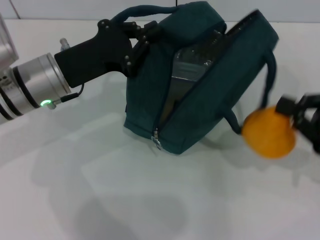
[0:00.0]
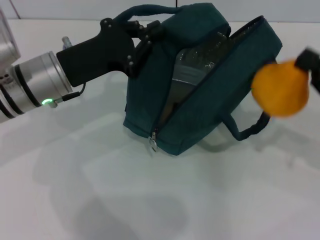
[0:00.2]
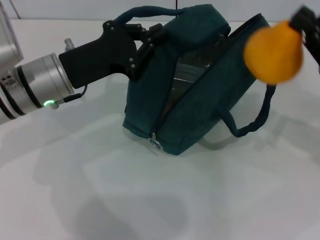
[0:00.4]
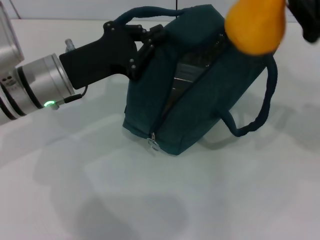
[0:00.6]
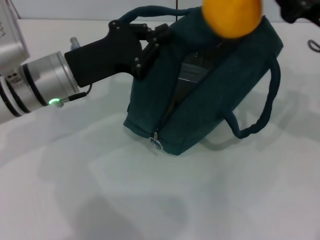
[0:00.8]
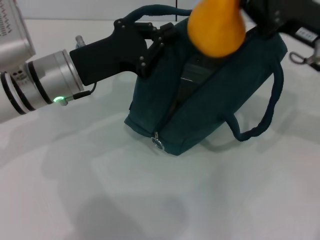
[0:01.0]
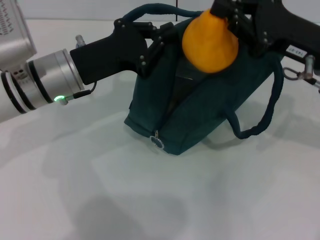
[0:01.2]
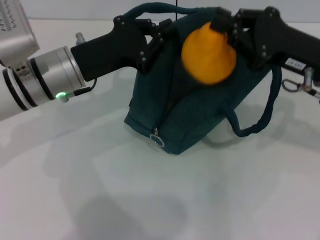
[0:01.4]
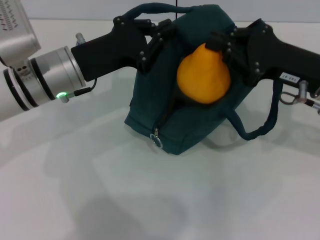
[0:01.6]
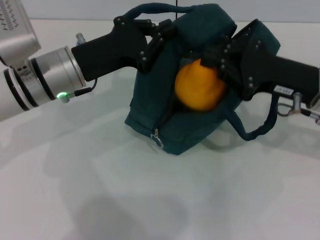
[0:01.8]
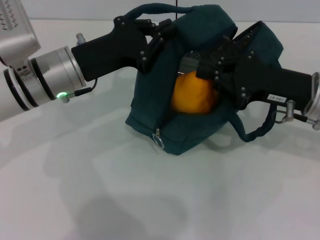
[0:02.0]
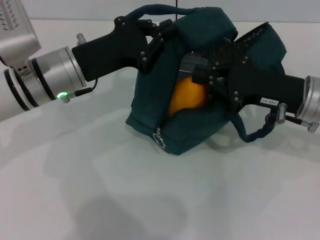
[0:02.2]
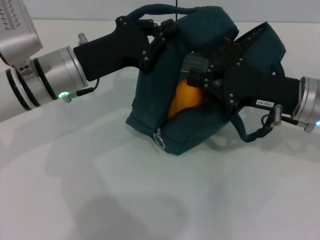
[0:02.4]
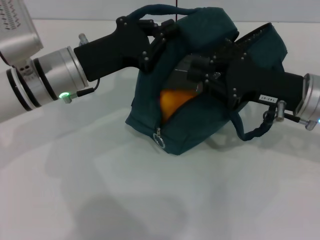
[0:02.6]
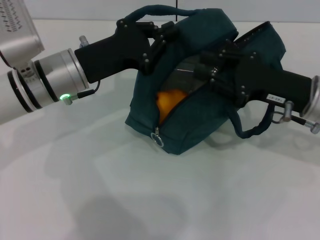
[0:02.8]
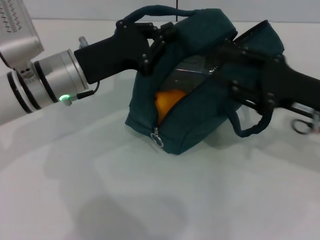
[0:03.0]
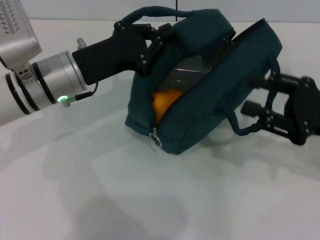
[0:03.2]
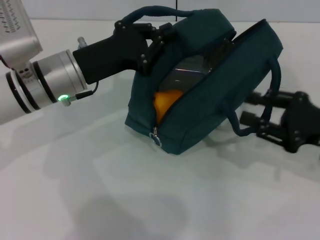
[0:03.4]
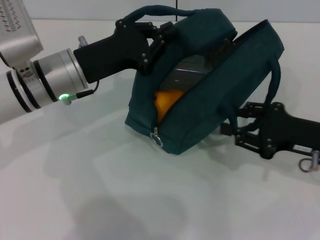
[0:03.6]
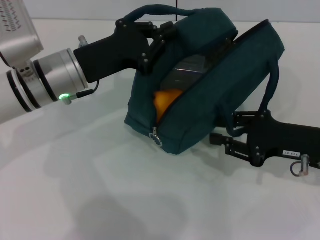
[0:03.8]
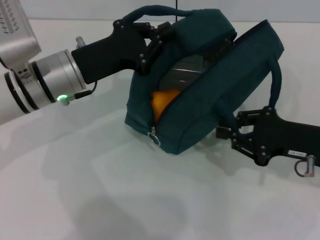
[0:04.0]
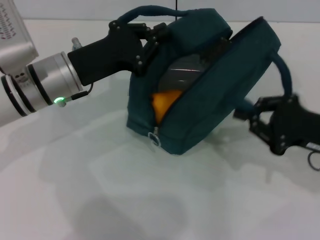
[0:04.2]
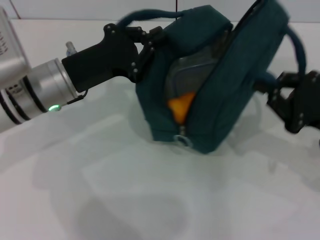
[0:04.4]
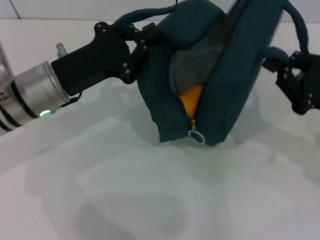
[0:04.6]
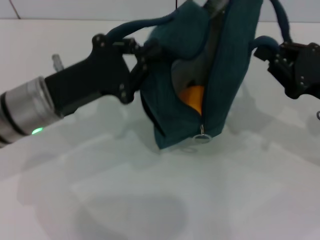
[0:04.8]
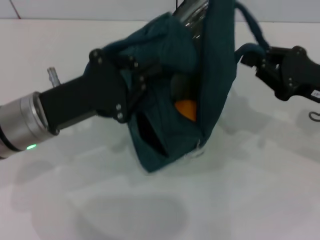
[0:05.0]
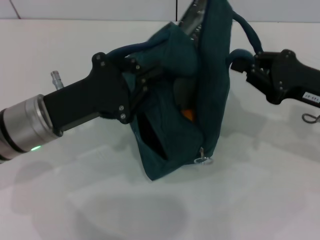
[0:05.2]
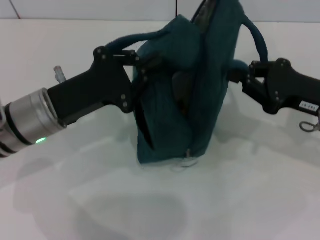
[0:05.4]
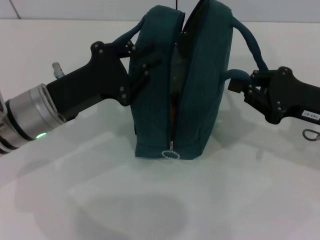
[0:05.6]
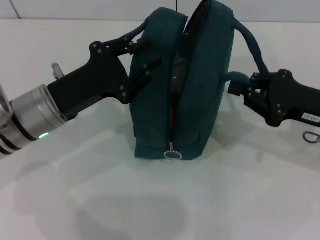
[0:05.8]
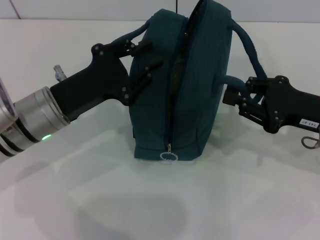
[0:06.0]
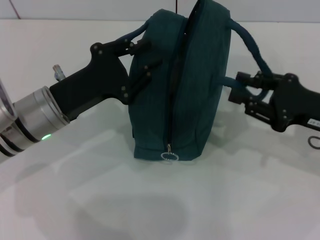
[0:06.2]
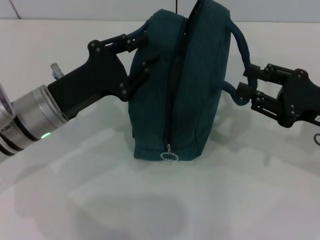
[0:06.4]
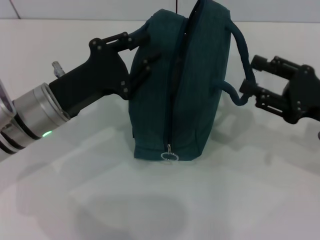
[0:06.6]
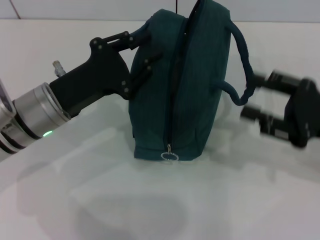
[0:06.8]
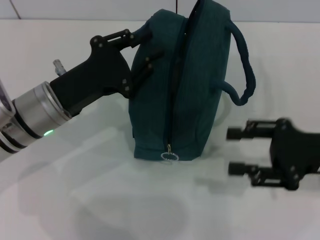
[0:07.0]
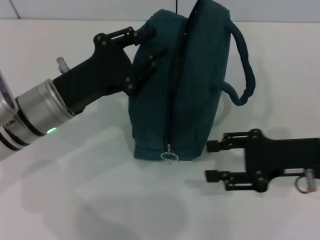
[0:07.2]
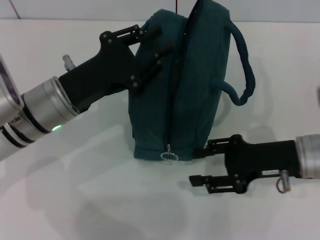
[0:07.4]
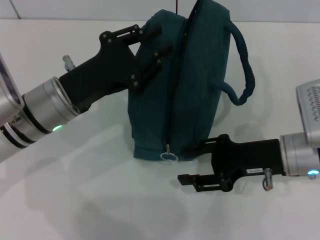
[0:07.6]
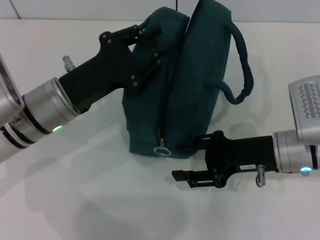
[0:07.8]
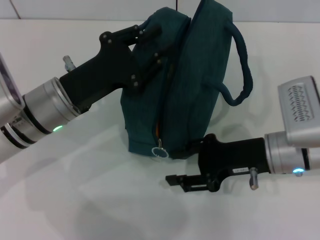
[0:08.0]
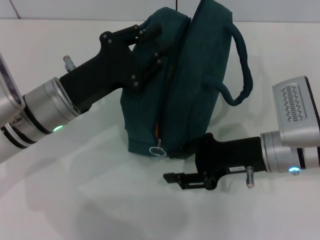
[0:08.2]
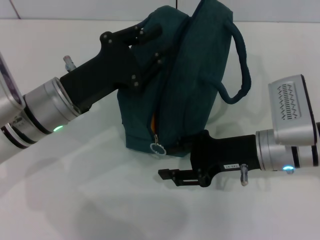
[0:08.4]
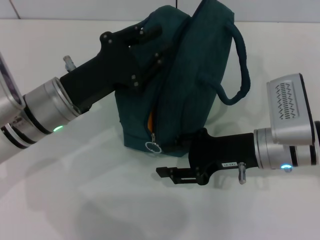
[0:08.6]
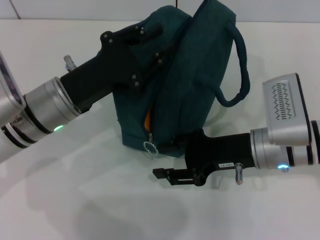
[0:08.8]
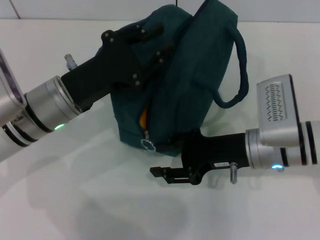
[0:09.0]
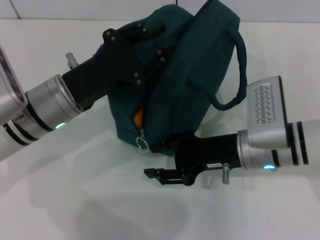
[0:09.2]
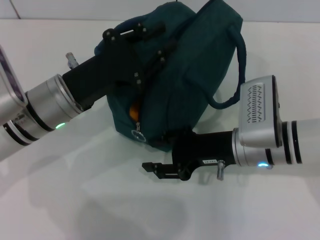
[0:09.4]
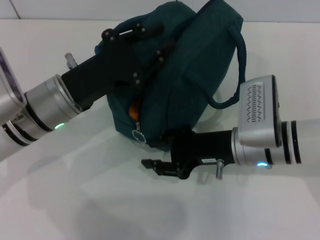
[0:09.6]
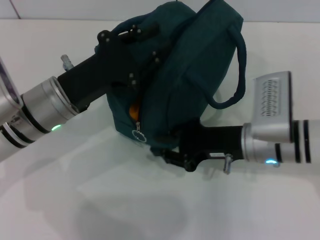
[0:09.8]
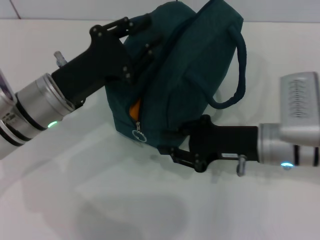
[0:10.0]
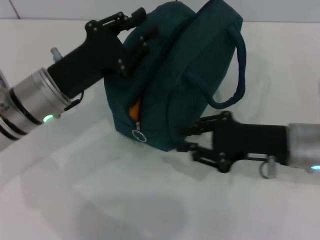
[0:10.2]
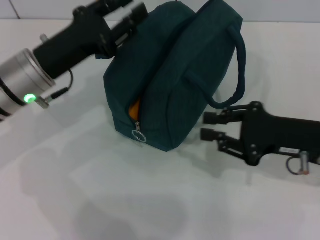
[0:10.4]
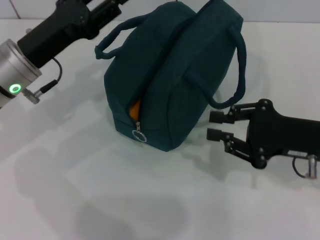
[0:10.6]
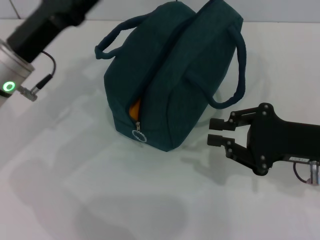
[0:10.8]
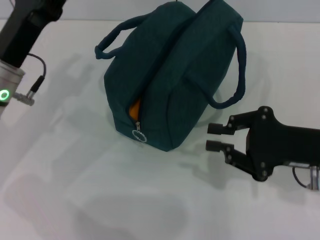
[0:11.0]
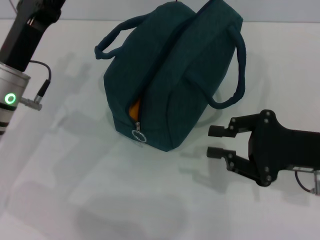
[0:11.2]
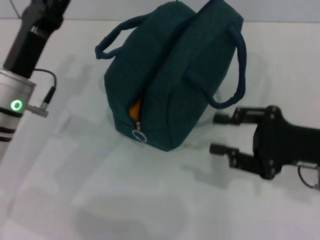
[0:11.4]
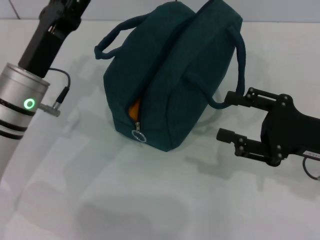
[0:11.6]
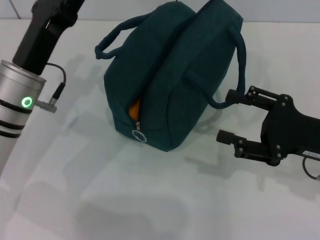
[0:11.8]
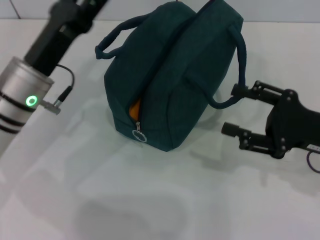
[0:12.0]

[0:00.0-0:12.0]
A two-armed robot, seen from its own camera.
Step, 0:03.0 to 0:06.4: Hold the lunch bag with your left hand.
0:00.0 to 0:01.6: The right gripper heads to the left and forward, covering approximately 10 cm.
0:01.6 to 0:03.0: There are only small adjustments of the grippers.
0:03.0 to 0:04.4: The right gripper shifts by approximately 5 cm.
0:06.0 to 0:07.6: The right gripper shifts roughly 5 cm to the left, and opens its fingers.
0:07.6 to 0:09.0: The grippers stay close to where they were, moving slightly.
0:09.0 to 0:10.4: The right gripper heads to the right, covering some 10 cm.
0:10.4 to 0:12.0: The left gripper opens. The right gripper opens its fingers.

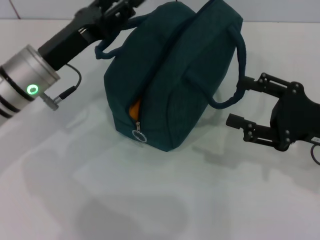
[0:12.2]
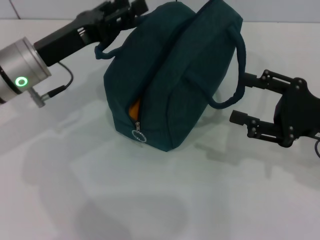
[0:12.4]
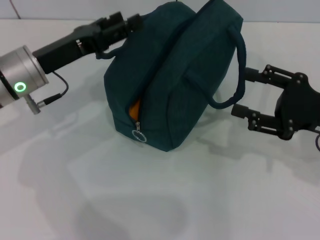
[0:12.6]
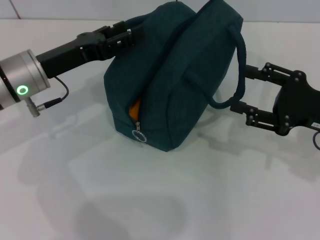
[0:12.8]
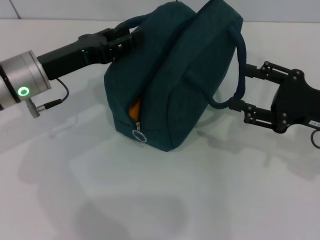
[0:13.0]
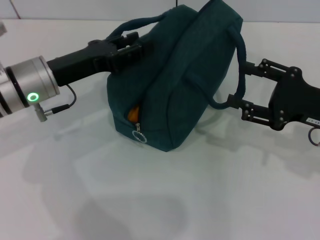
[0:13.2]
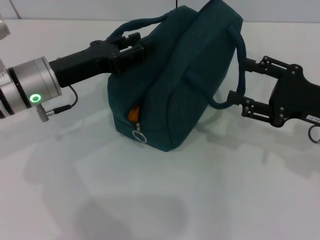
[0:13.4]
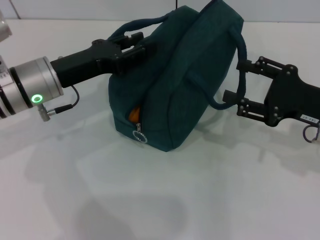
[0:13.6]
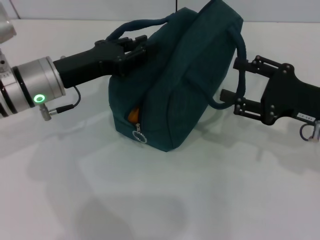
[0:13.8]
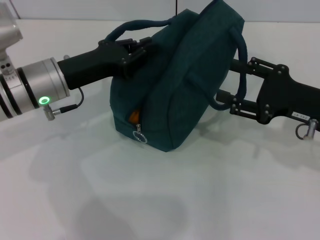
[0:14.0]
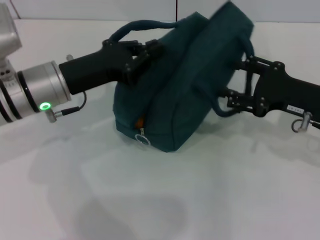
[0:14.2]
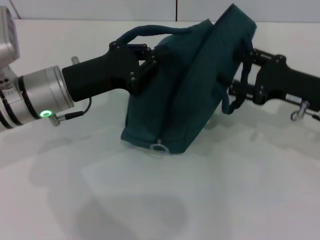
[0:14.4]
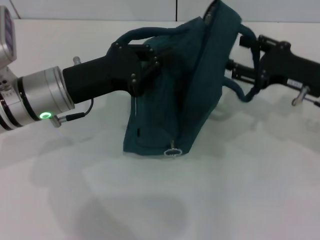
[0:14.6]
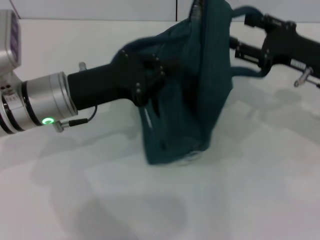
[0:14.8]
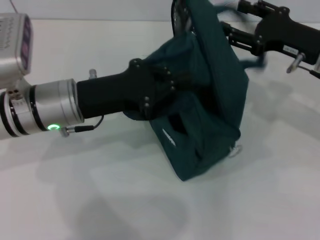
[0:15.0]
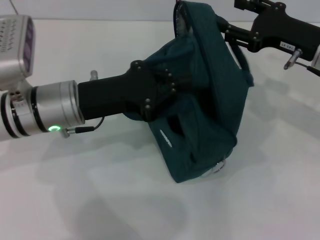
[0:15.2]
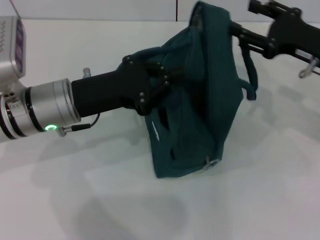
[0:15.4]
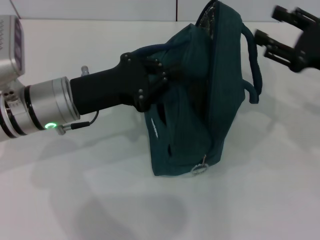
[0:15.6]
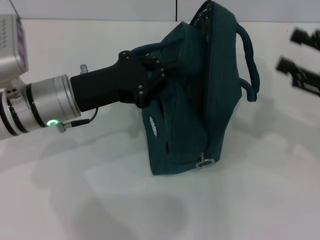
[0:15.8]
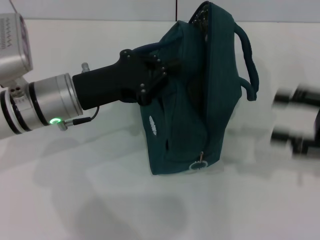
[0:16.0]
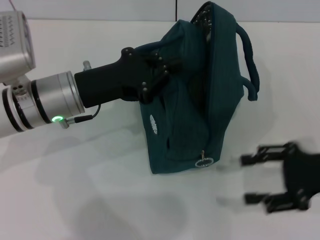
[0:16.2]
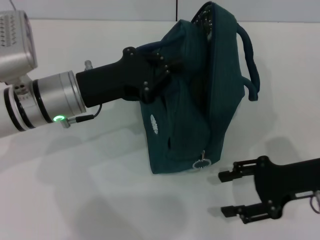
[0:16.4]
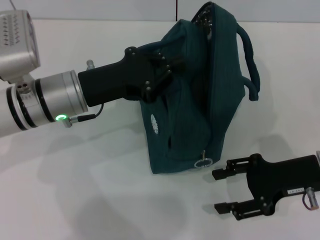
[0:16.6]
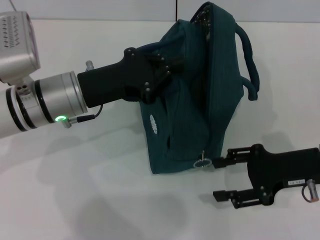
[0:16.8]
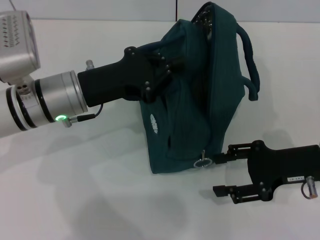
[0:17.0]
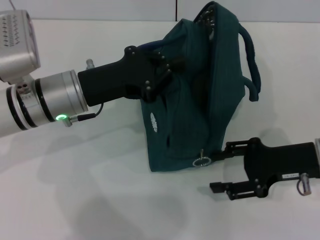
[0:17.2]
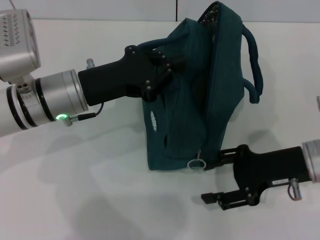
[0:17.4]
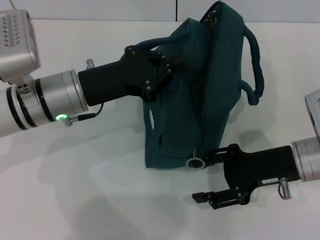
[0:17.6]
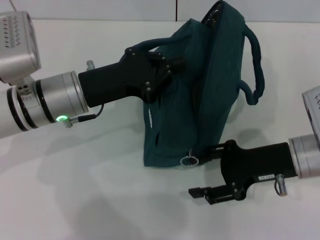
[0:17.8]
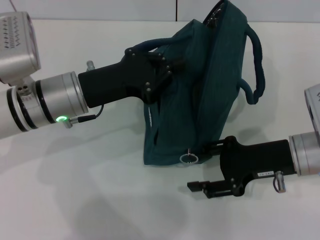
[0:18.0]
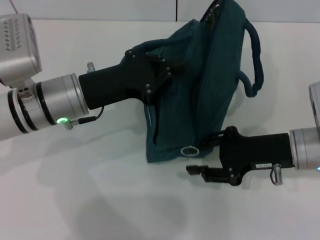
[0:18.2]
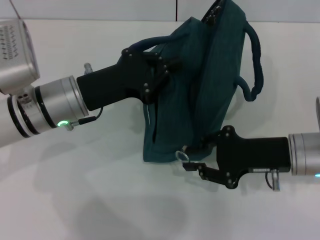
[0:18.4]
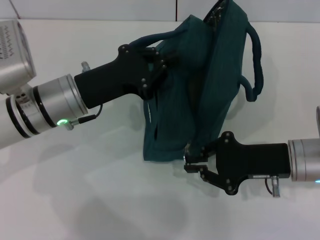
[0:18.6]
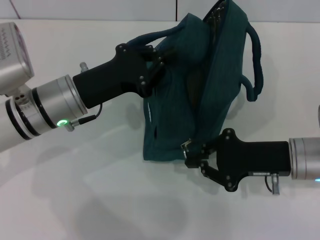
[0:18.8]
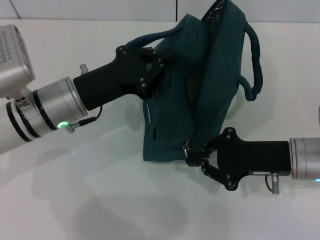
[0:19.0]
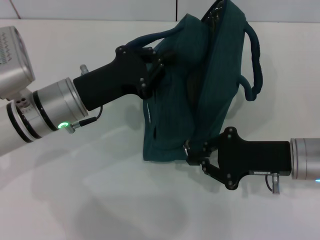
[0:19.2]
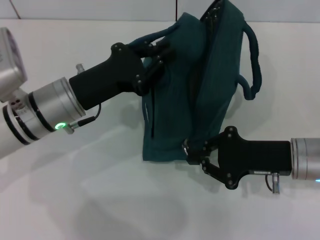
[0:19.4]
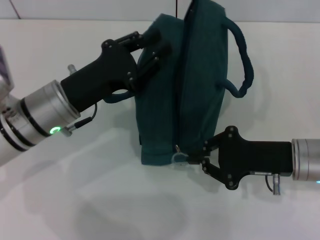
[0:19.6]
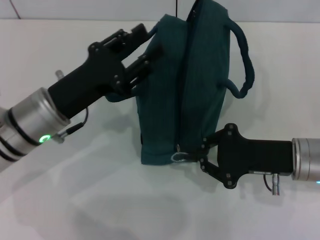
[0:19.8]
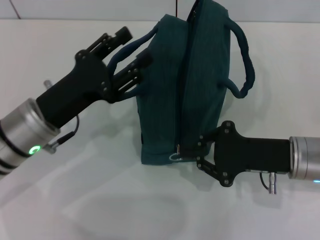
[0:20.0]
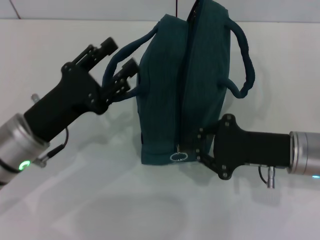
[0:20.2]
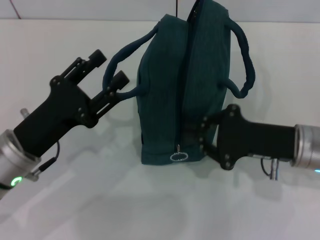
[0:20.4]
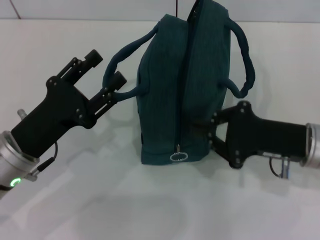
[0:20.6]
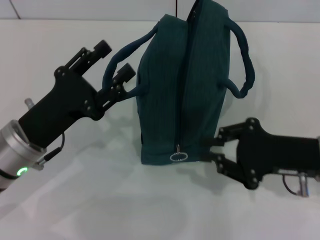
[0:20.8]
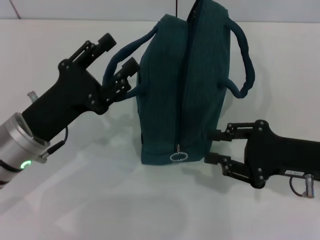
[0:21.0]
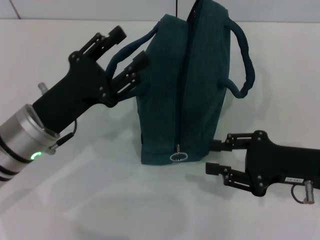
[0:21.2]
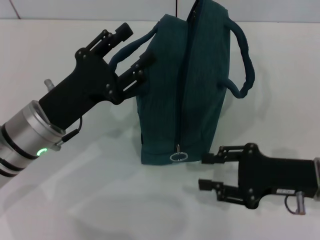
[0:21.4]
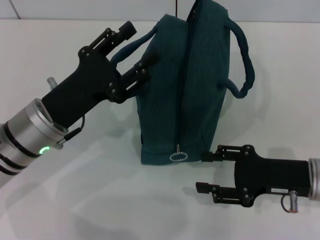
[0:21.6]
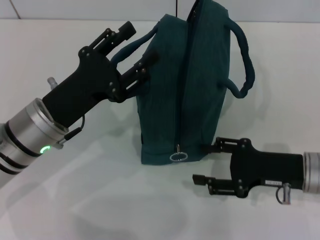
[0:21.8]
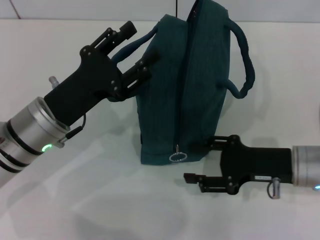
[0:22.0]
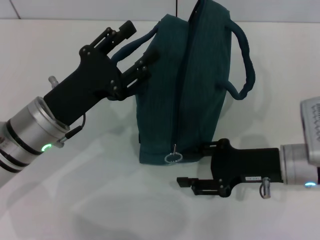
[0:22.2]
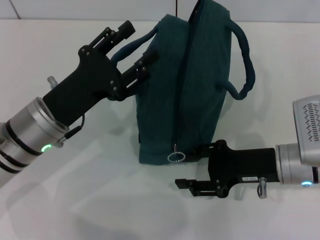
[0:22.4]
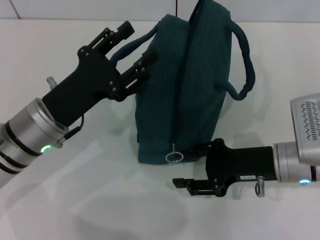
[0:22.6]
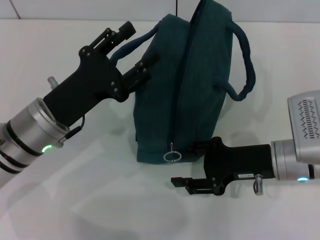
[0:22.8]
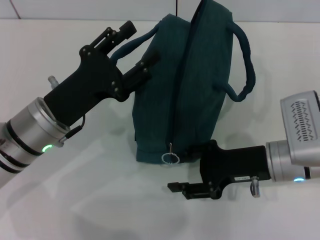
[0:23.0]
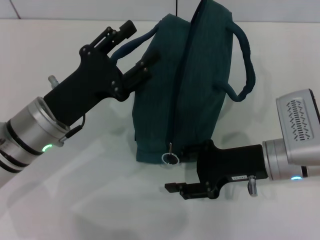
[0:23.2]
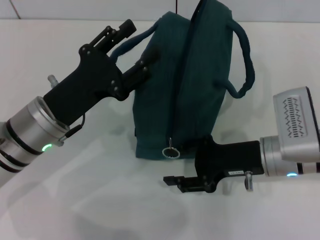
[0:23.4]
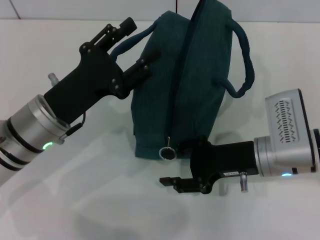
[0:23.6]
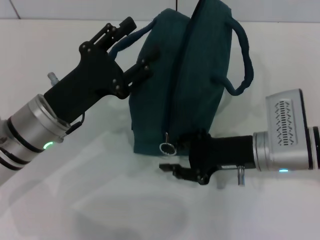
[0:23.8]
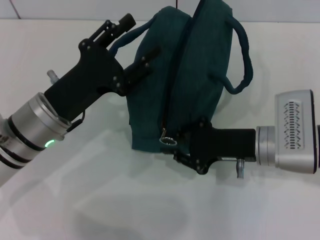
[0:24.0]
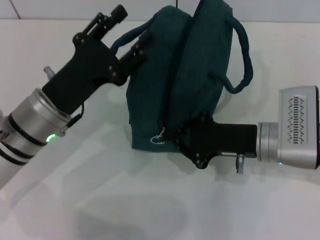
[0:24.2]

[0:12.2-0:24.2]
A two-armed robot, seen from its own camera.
0:12.2 to 0:13.8: The left gripper closes.
0:13.8 to 0:15.2: The right gripper shifts roughly 10 cm forward; the left gripper closes up.
0:15.2 to 0:16.6: The right gripper goes approximately 10 cm backward and downward.
0:16.6 to 0:18.2: There are only small adjustments of the grippers.
0:18.2 to 0:19.8: The right gripper closes its fingers.
0:19.8 to 0:21.2: The left gripper opens its fingers.
0:21.2 to 0:22.6: The right gripper travels to the left by roughly 5 cm.
0:22.6 to 0:24.2: The right gripper closes.
